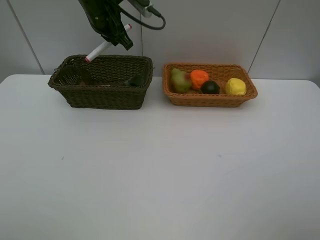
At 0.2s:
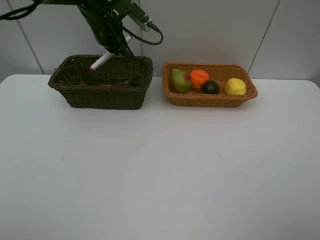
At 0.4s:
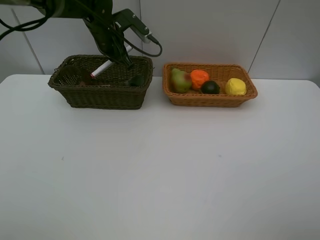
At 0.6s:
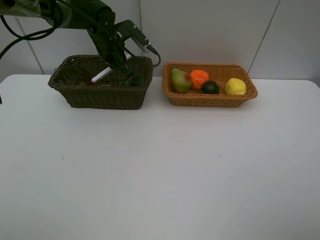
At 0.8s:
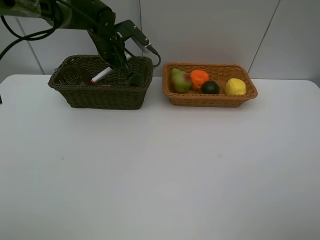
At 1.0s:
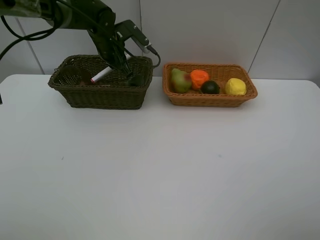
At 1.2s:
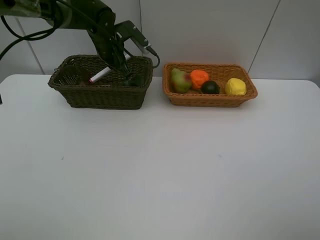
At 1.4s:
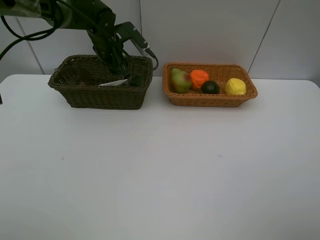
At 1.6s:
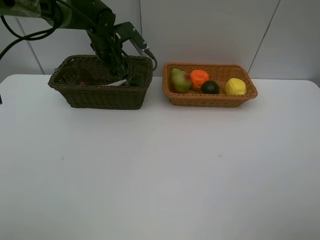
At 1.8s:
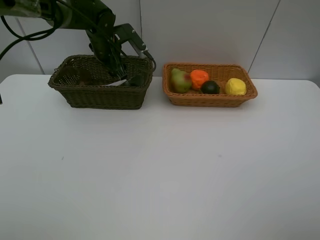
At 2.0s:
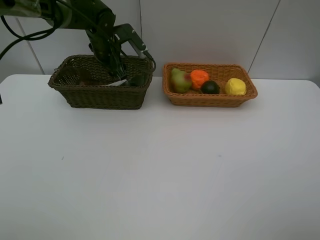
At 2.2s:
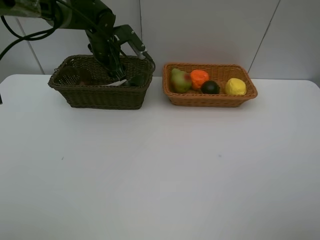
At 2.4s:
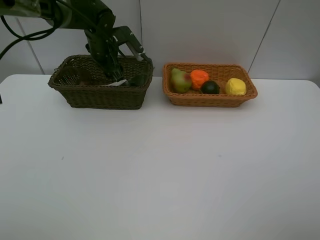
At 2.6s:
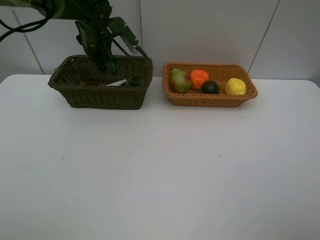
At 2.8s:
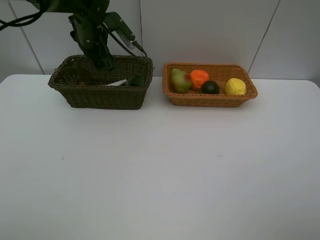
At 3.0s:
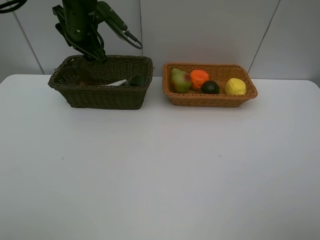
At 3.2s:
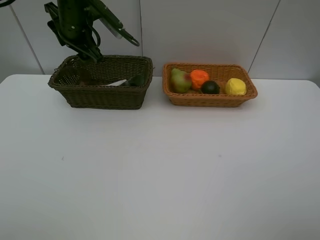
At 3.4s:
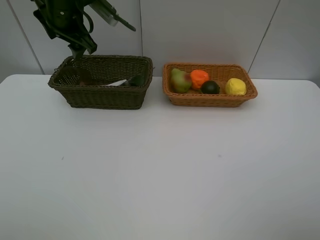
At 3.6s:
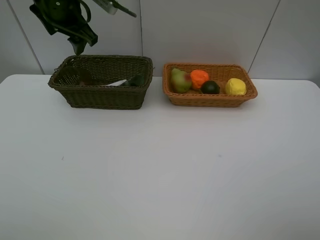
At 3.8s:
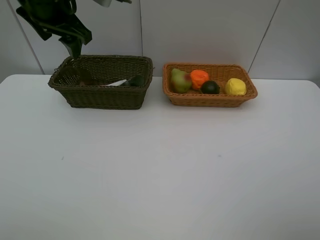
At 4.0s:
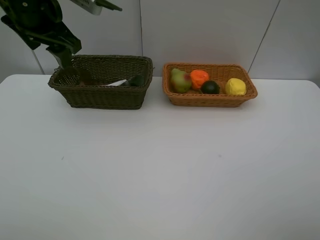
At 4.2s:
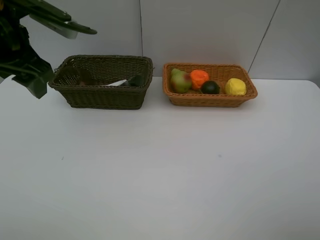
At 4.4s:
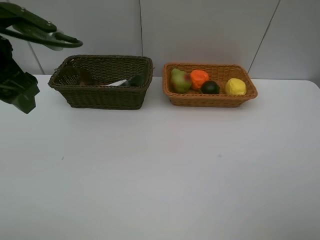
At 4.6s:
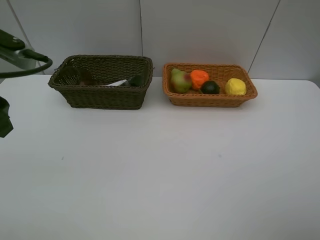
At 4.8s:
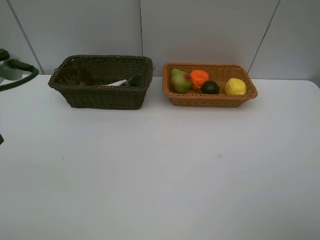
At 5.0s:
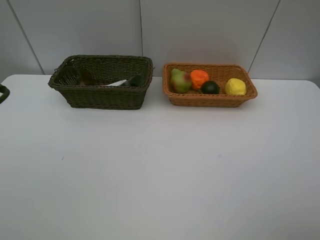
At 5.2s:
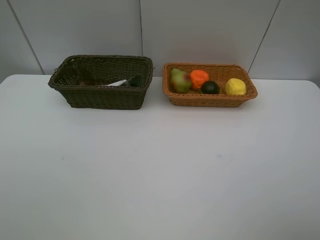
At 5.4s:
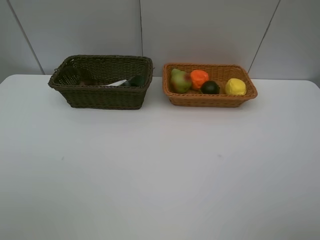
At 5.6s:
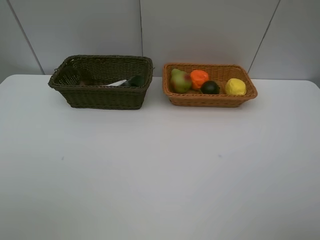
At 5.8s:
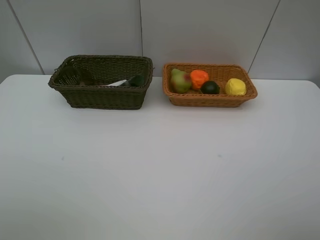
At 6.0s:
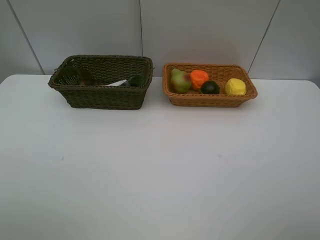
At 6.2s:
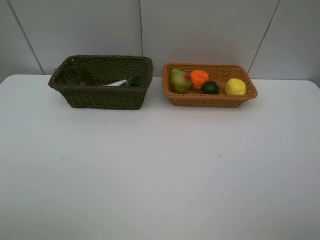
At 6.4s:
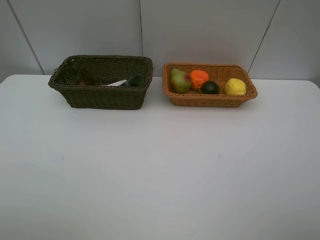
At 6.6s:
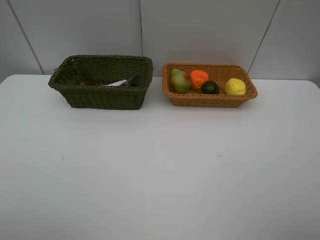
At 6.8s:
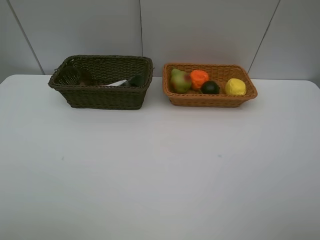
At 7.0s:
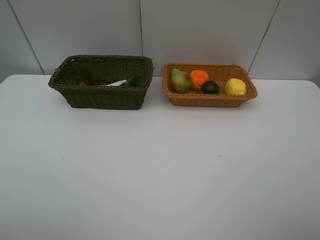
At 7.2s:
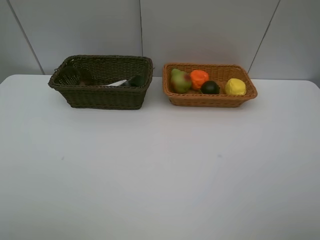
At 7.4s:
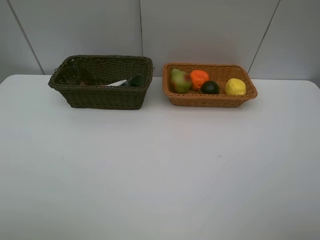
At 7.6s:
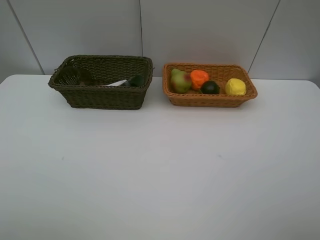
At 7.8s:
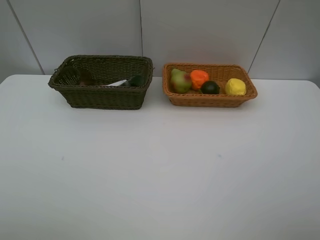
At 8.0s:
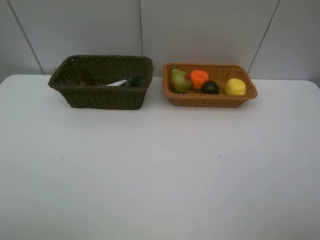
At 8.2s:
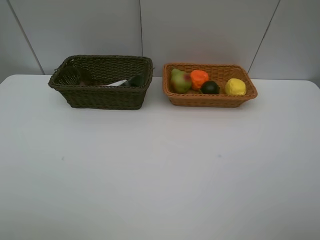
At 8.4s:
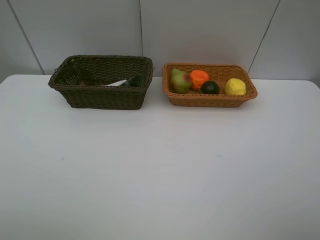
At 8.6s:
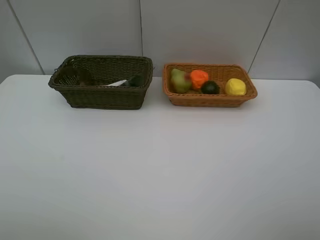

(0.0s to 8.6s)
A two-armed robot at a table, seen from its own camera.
Task of the whole recording: Place multiple objects separately in different baskets.
Step, 0.0s - 1.6s: Place the red marker in the dark basket with left gripper.
0.0s - 1.4s: The left gripper is displaced downward by approximately 10 cm, and opens.
1.4s - 2.8s: The grippers make only small movements.
2.8s - 4.4s: The left gripper goes approximately 25 cm backward.
4.4s - 5.8s: The left gripper moves backward and to the left, approximately 20 cm.
7.2s - 8.6s: Both grippers stay about where they are.

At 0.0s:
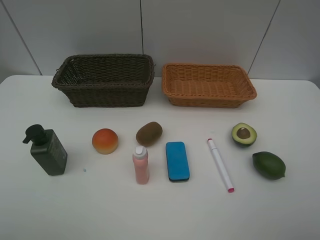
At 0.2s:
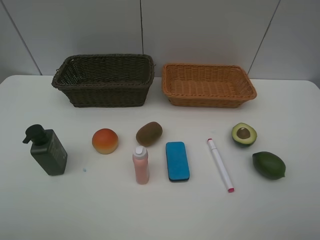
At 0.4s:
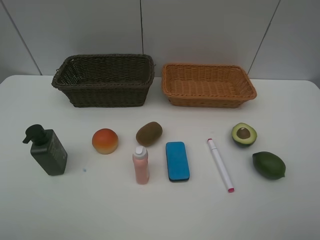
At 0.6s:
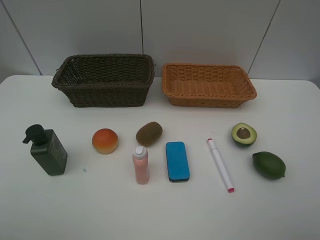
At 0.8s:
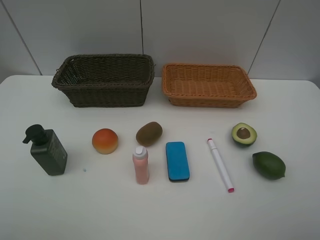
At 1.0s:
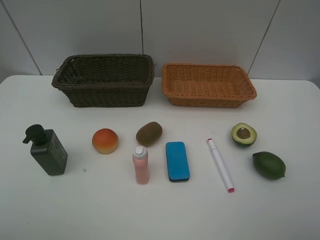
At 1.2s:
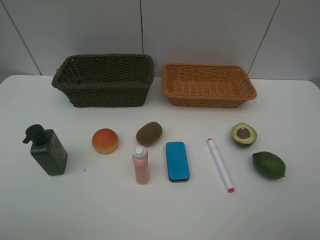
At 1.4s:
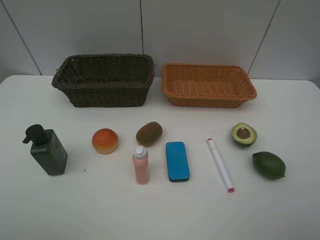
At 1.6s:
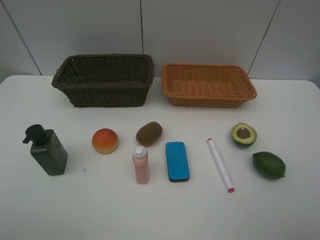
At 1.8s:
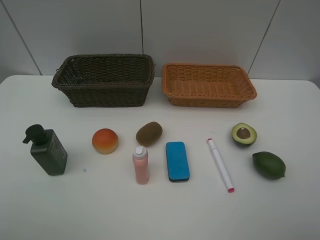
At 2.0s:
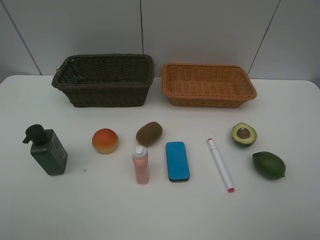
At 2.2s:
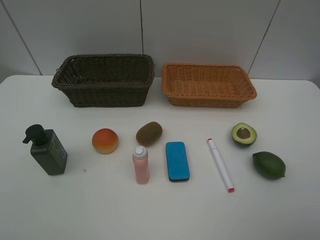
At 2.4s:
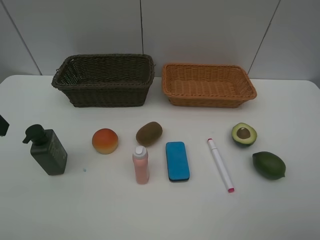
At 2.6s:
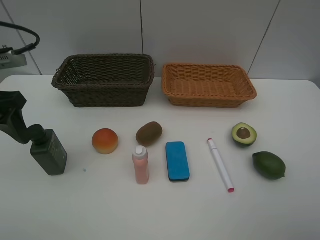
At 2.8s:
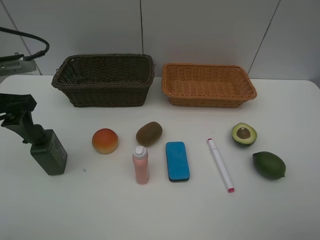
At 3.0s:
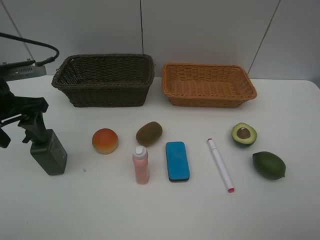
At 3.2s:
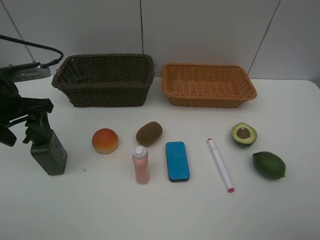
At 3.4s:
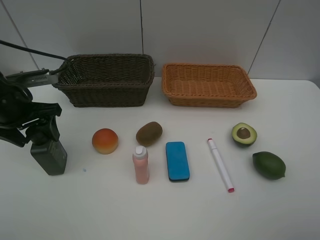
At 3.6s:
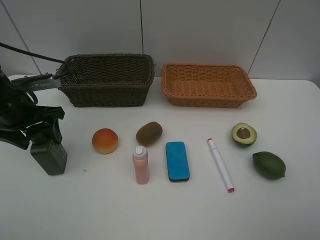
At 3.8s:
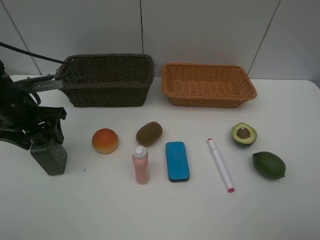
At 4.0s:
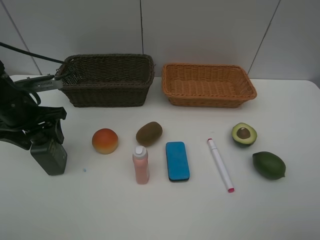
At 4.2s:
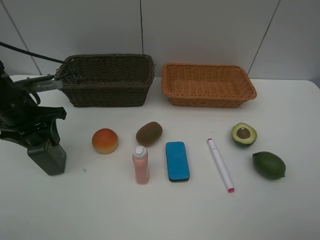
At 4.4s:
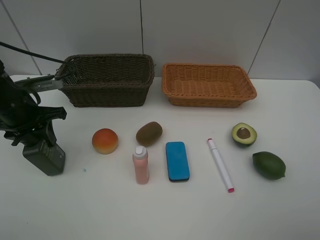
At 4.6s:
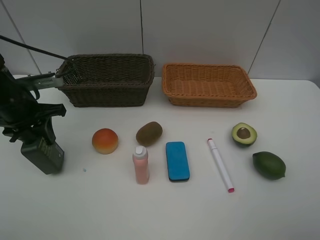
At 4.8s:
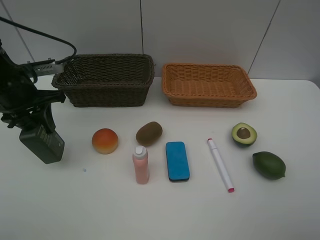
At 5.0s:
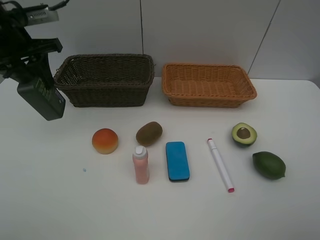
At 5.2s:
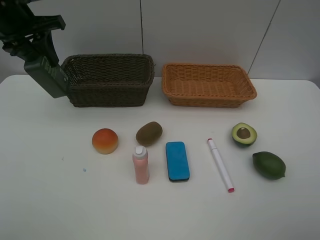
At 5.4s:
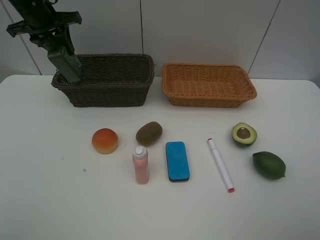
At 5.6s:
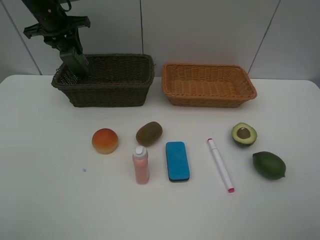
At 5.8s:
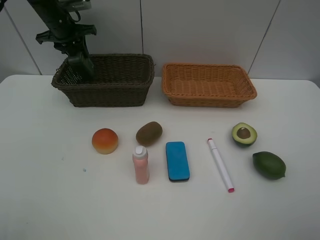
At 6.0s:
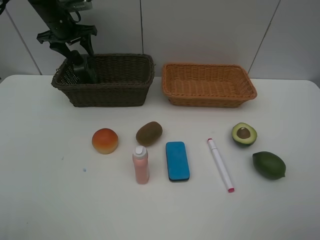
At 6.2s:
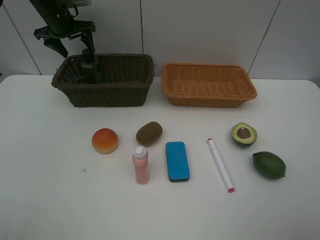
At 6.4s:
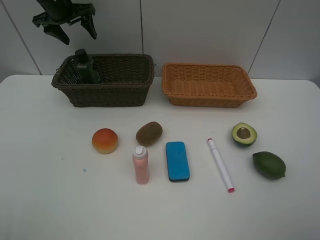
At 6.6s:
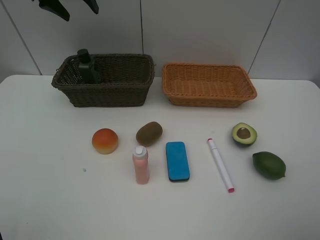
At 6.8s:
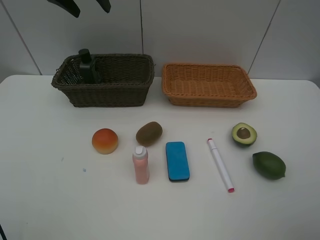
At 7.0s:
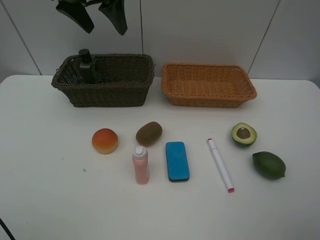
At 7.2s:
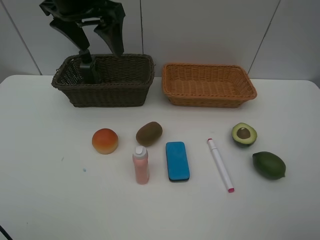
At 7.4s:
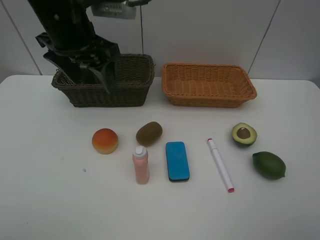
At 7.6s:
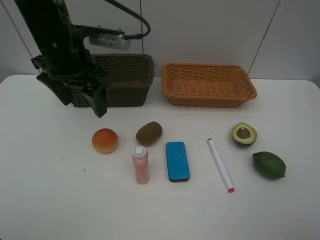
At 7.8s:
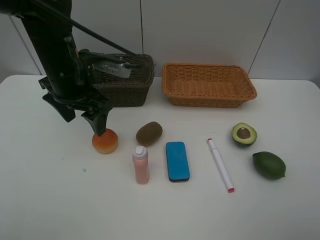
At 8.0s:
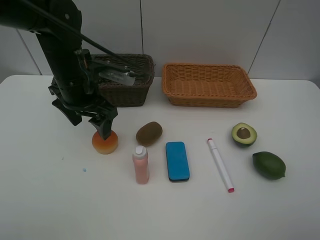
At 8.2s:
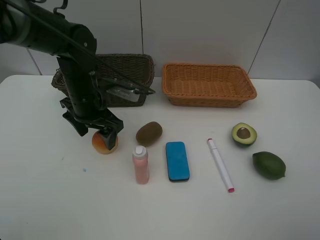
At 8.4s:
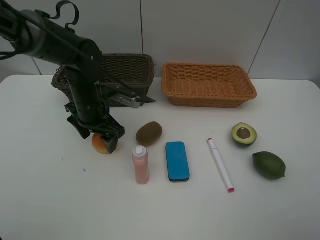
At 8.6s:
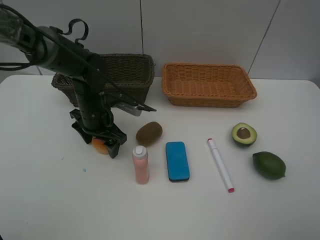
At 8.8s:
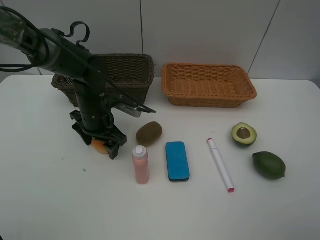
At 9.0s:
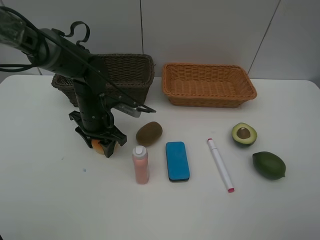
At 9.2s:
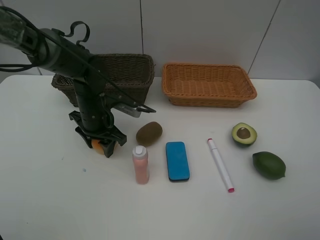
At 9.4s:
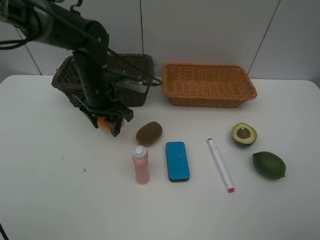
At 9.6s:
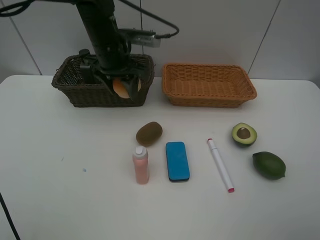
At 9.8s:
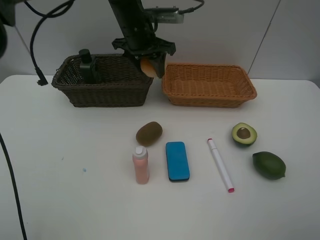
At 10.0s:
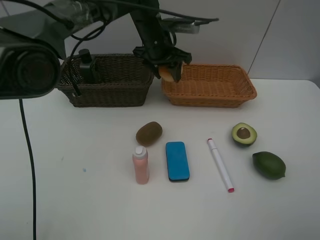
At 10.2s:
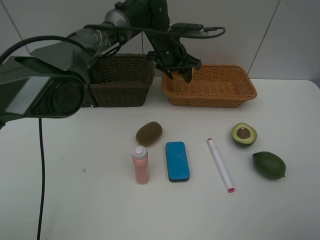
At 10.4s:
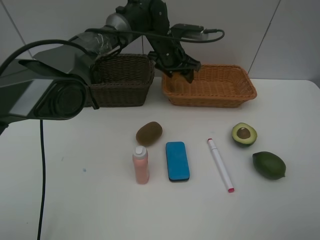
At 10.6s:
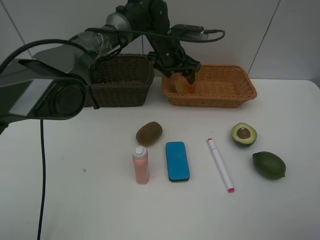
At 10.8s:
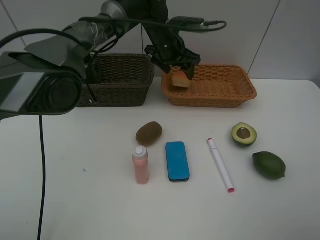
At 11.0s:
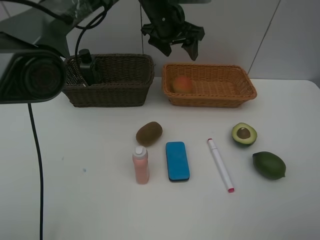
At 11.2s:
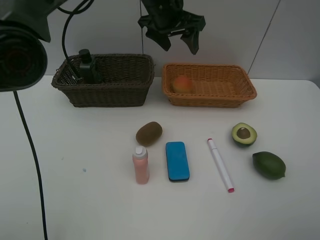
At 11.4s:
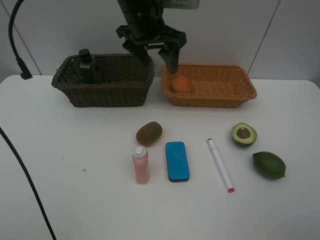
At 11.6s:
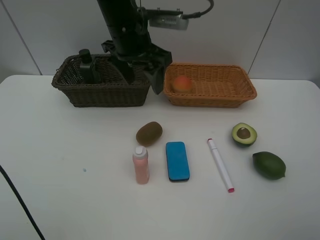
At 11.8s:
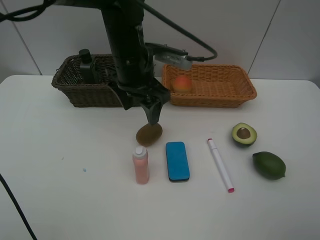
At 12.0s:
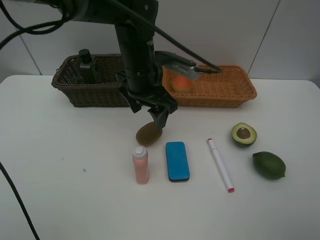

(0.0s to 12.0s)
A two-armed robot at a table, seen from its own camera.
Task of the whole recording: Place multiple objects separately in different baskets.
Step, 0.0s - 4.8s: Pick up the hard facial cleanser with left gripper.
Step, 5.0s - 6.2s: Place the hard facial cleanser in the dark basket with left gripper.
Step, 6.4s - 9.2s: Pick up egg yolk pastry with left gripper.
Step, 9.4s - 10.8s: Place the egg yolk pastry in the light basket with left gripper.
0.0s - 1.6s: Both grippers stay about where they are.
1.6s - 3.0s: The left gripper moves forward, about 25 cm.
3.0s - 4.4s: The left gripper is displaced downward by about 5 cm, and closes.
4.4s - 6.0s: The left gripper is displaced forward by roughly 25 cm, and opens up.
6.0s - 7.6s: The left gripper is displaced backward and to the right by some 25 cm.
7.6s - 9.0s: The left gripper moves downward, roughly 15 cm, and closes.
9.0s - 10.4s: The left gripper heads to the right, forward and upward, covering approximately 25 cm.
10.4s - 12.0s: The left gripper goes about 15 cm backward.

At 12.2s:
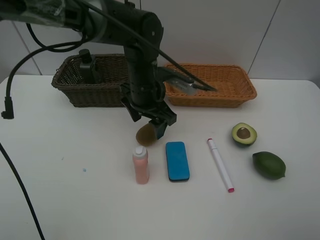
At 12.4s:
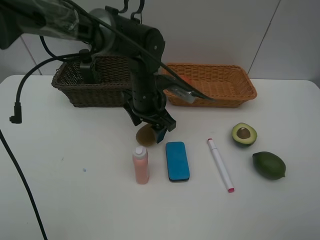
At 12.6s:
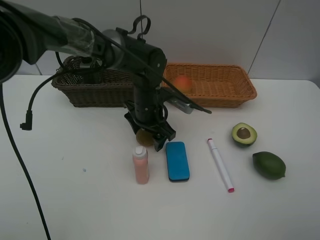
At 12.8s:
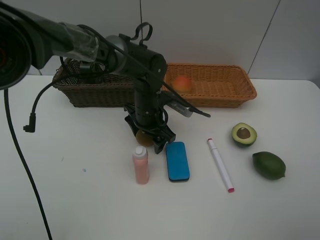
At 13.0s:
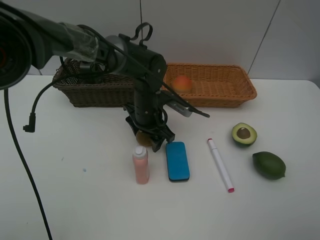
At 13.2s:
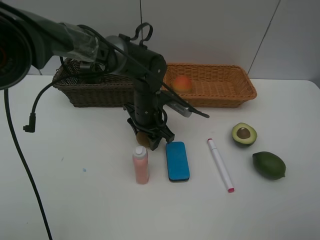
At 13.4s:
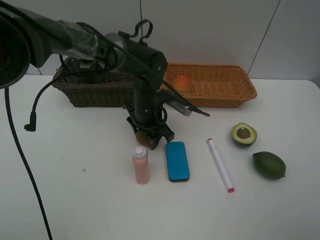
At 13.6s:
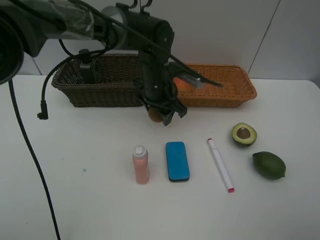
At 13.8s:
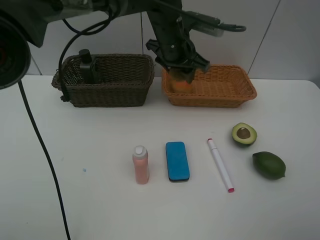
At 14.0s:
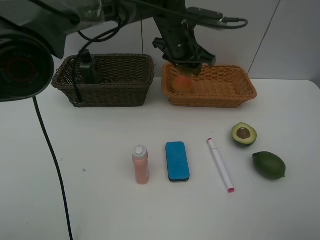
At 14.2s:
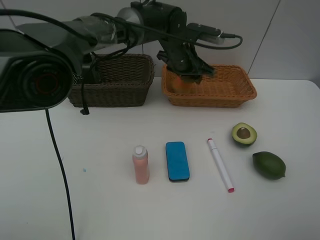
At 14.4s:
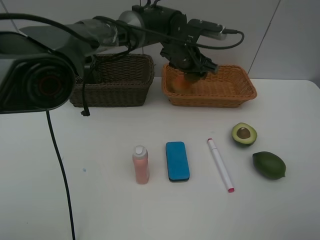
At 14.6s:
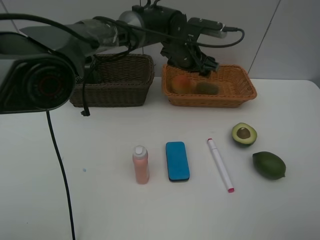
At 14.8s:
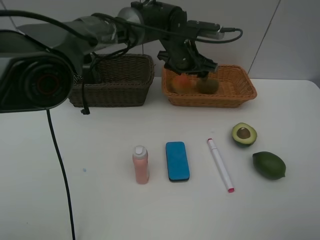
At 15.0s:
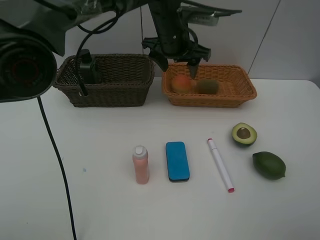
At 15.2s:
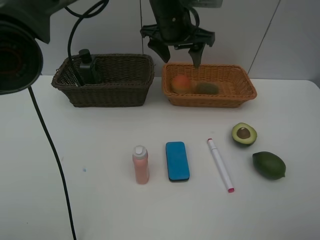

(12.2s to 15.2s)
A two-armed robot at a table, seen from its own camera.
Task of the whole recording: Place multiple objects separately in different baskets.
Step, 12.2s - 13.6s: Pick up kiwi with left gripper.
Step, 13.8s - 14.8s: Place the kiwi in the light basket with left gripper.
12.2s - 13.8s: The left gripper shifts roughly 10 cm upward, forward and to the right, and closes.
13.8s - 15.2s: The left gripper opens its fingers.
